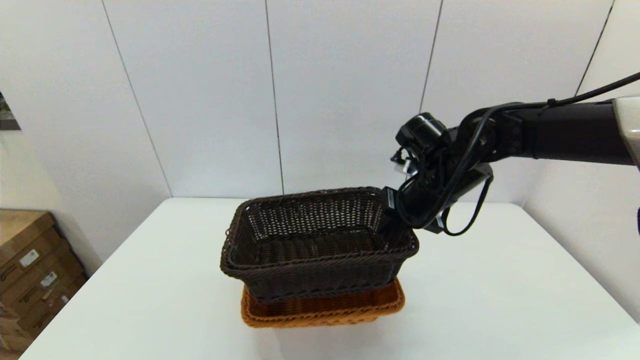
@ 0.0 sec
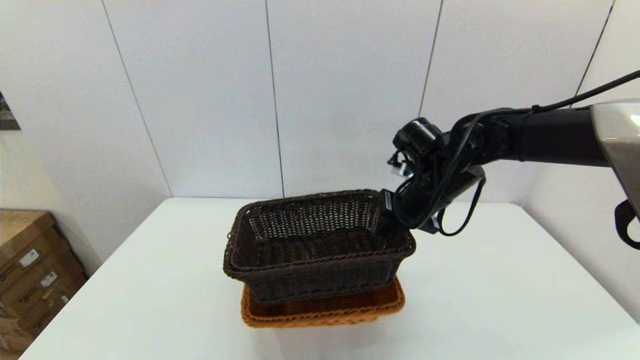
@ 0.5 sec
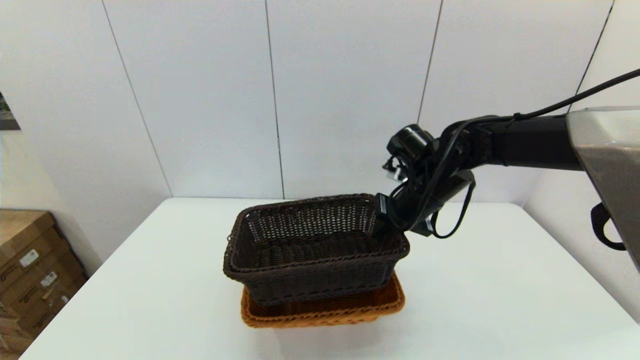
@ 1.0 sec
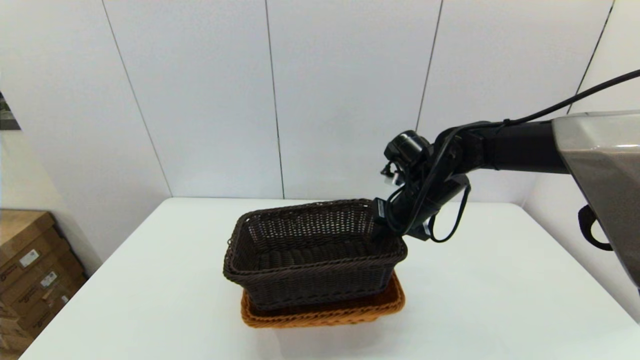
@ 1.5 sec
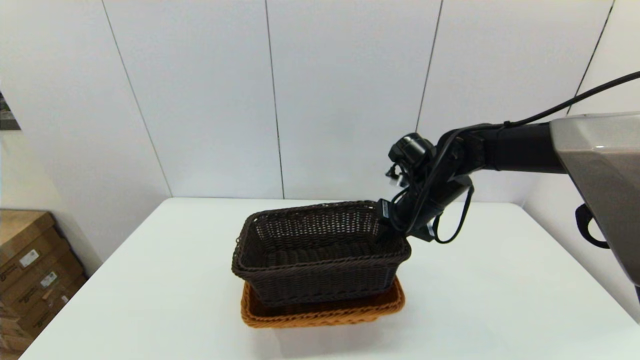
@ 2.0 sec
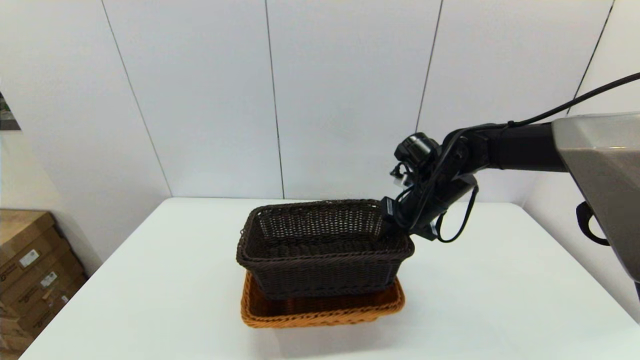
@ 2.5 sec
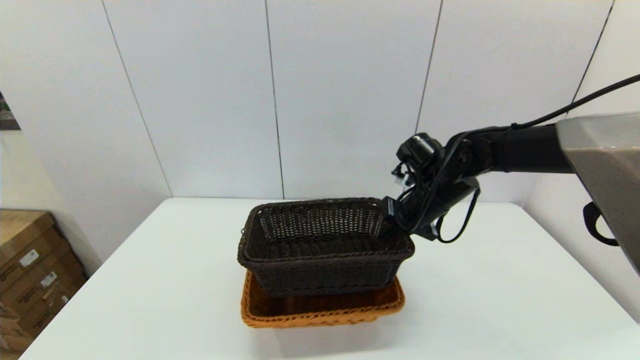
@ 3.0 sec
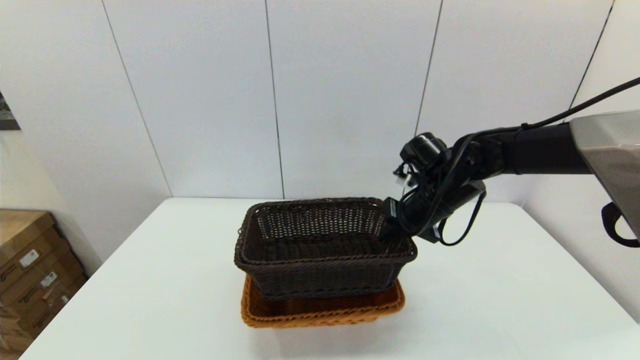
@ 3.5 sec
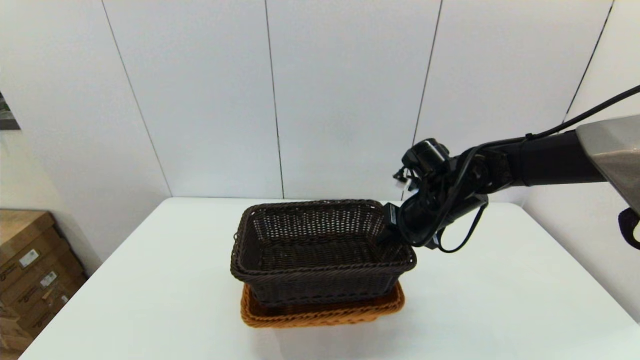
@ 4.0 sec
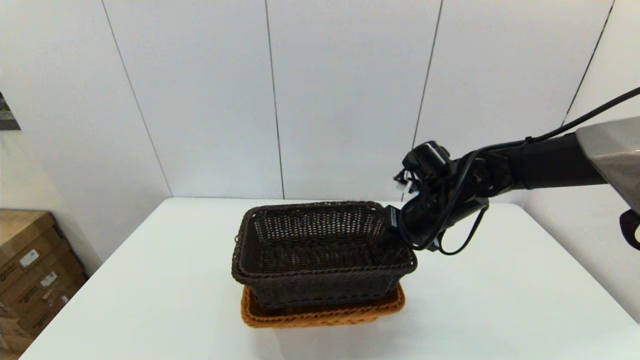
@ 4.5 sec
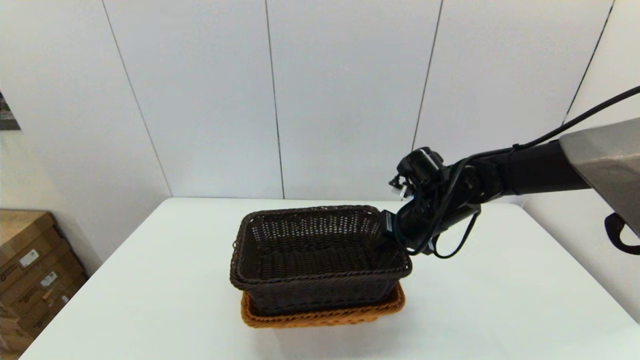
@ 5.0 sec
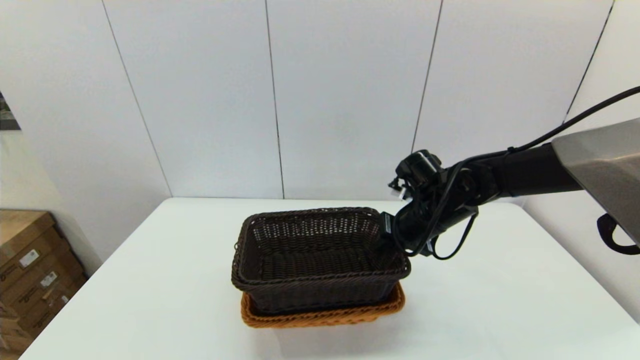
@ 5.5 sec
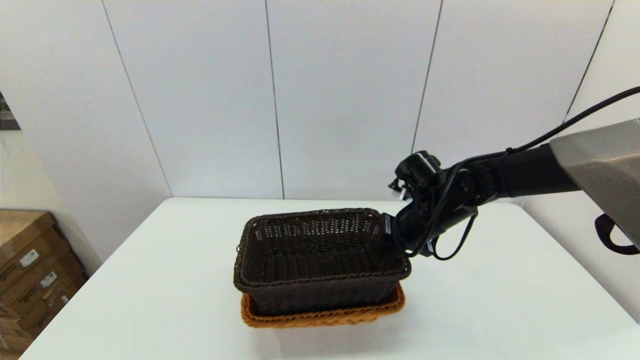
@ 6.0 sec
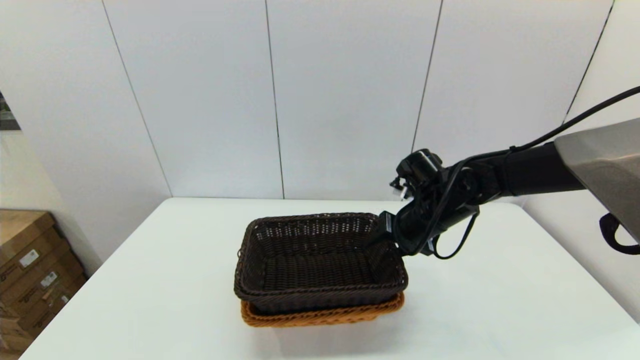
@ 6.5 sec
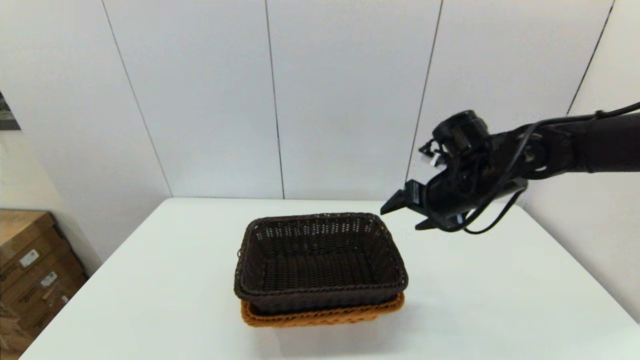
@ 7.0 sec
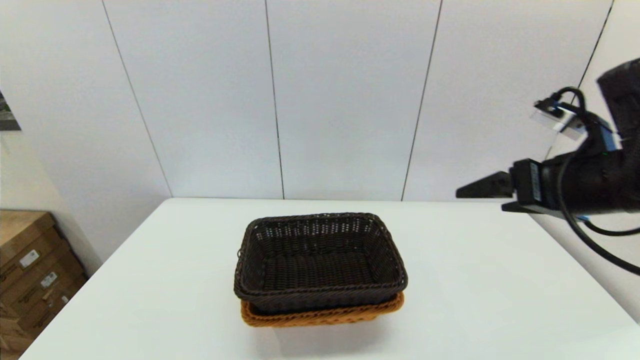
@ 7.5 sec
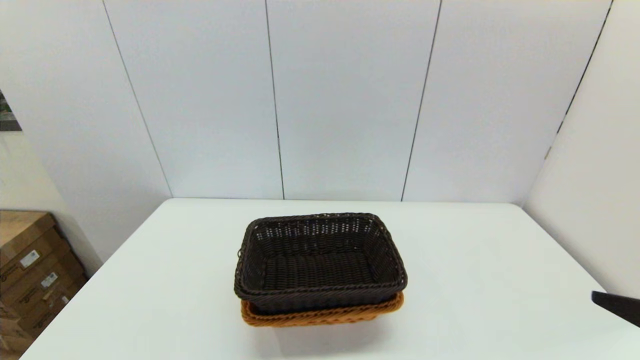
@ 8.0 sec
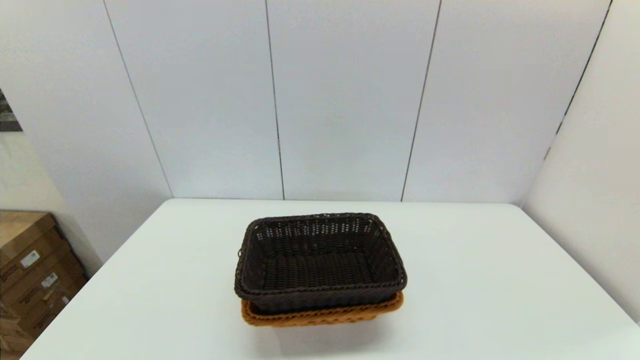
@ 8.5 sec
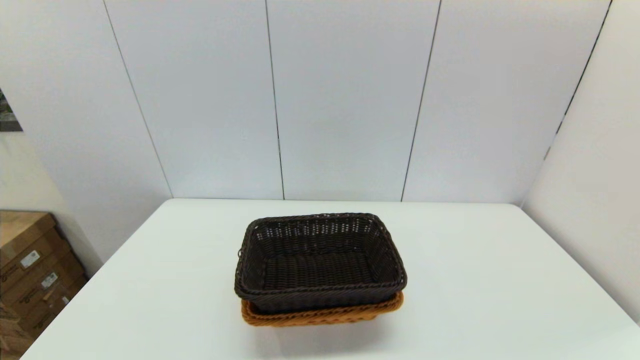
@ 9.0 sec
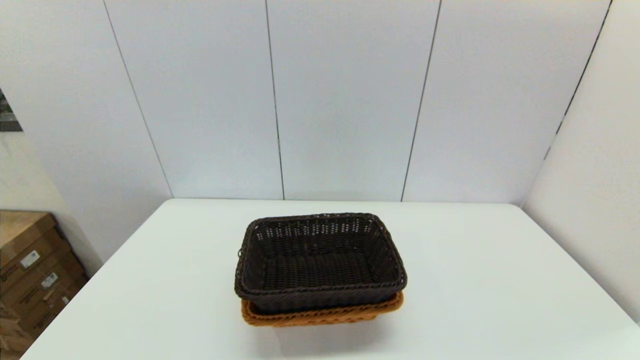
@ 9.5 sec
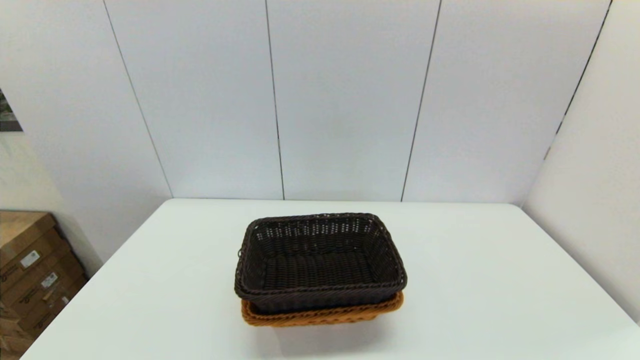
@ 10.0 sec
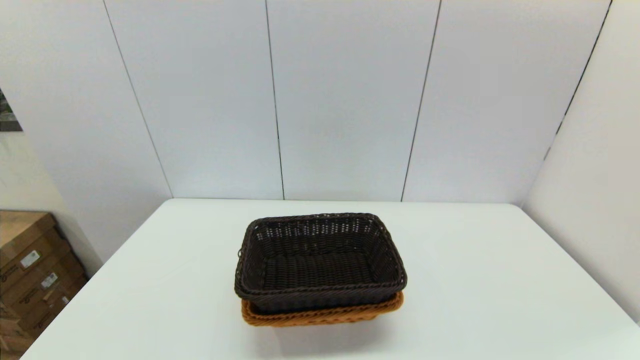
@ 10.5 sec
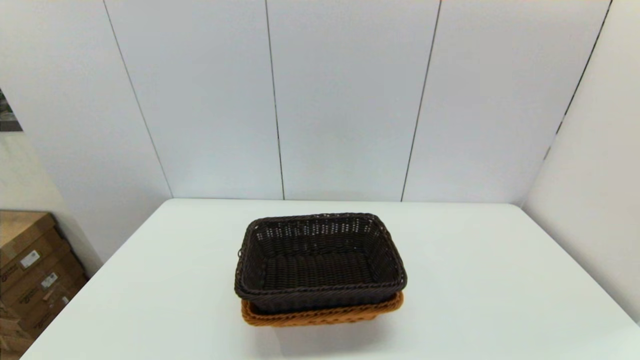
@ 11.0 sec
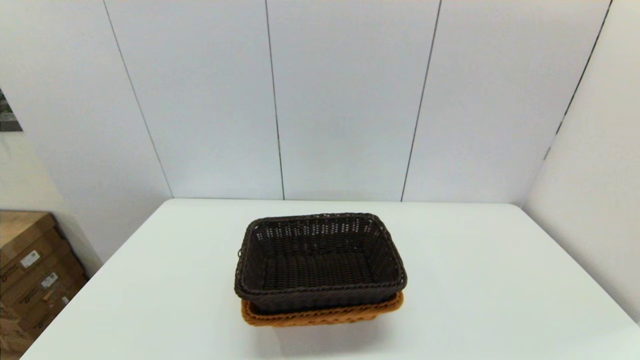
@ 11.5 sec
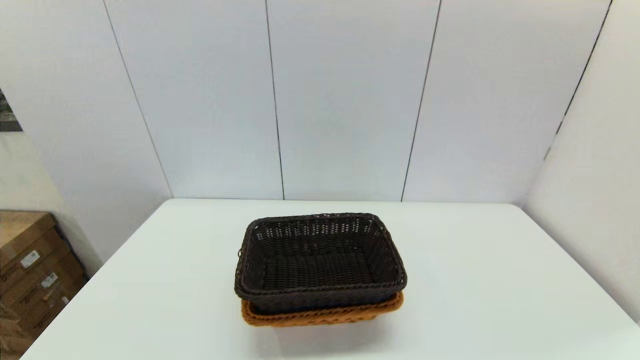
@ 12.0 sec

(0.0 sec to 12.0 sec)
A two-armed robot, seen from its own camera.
Task of the whole recording: stack a basket on top of another basket.
Step, 0.0 sec - 6.5 sec: Place the dark basket into the light color basket with the right gripper.
0.0 sec - 4.0 sec: The grippers make only small movements.
4.0 sec - 6.0 sec: The grippers make only small movements.
6.0 sec - 8.0 sec: The right gripper is displaced backward and to the right by approximately 35 cm, and opens its fingers.
10.0 sec - 12.0 sec: Both grippers stay about where they are.
